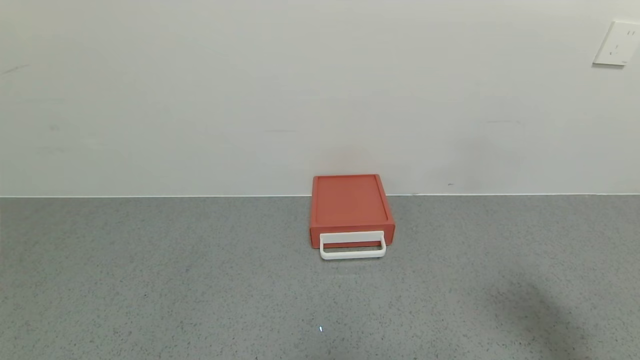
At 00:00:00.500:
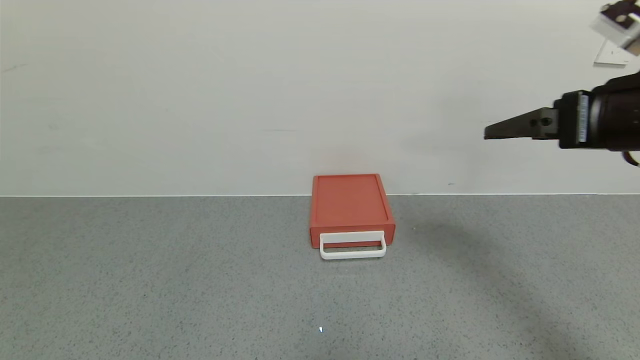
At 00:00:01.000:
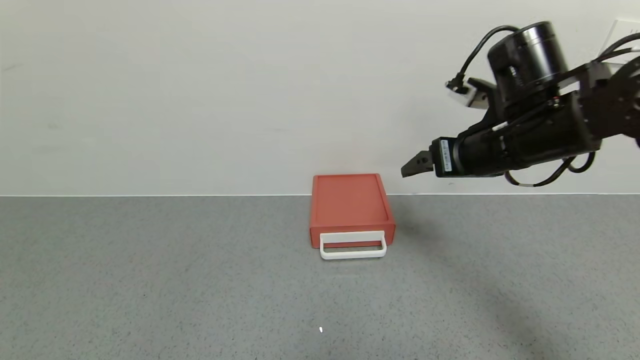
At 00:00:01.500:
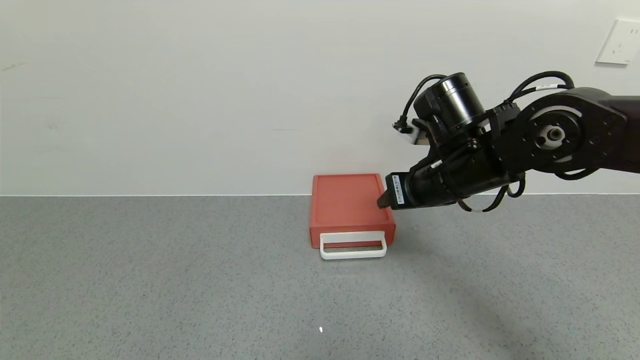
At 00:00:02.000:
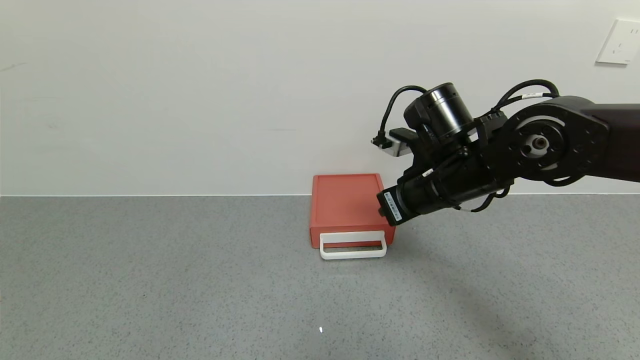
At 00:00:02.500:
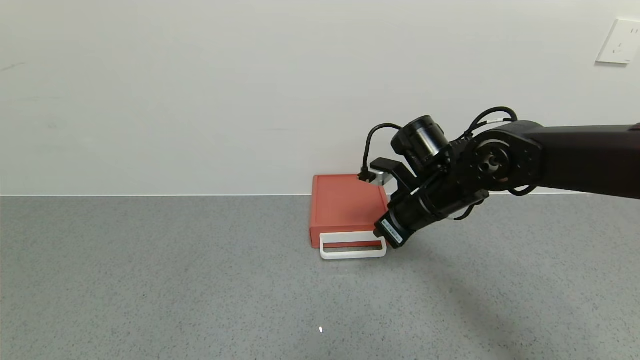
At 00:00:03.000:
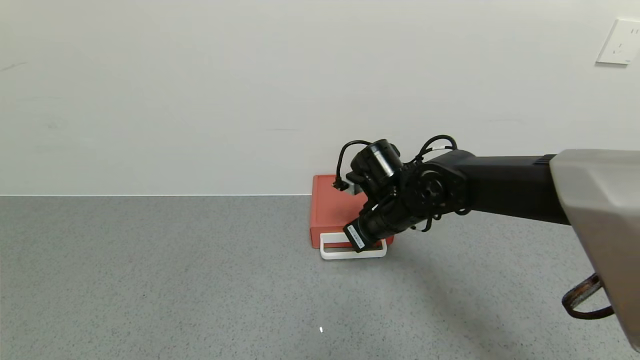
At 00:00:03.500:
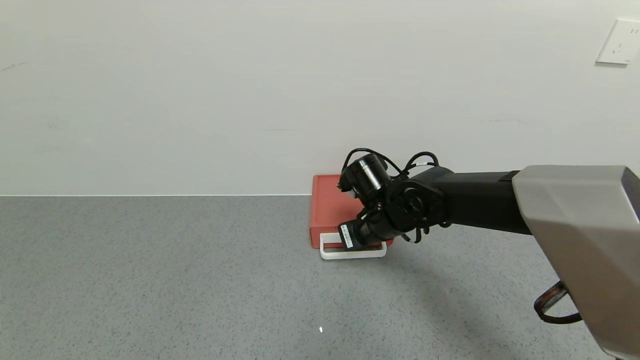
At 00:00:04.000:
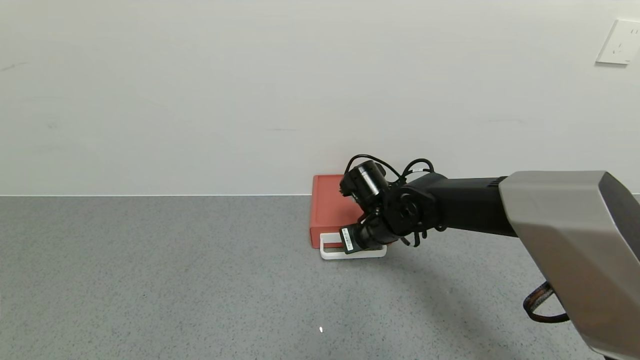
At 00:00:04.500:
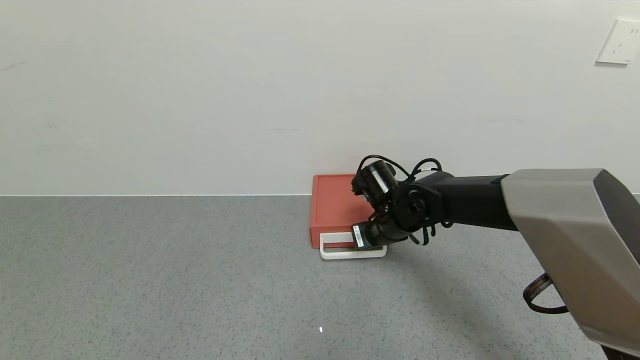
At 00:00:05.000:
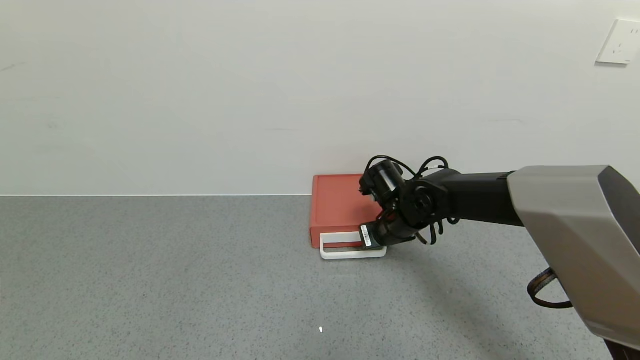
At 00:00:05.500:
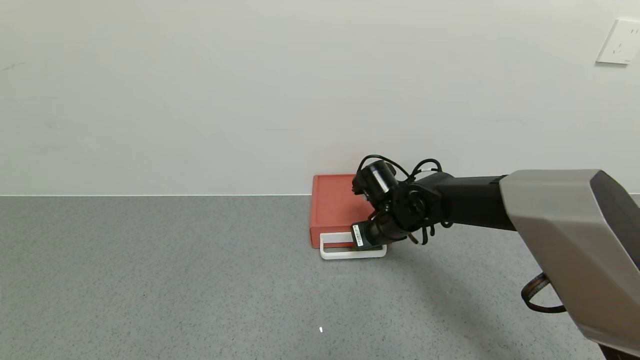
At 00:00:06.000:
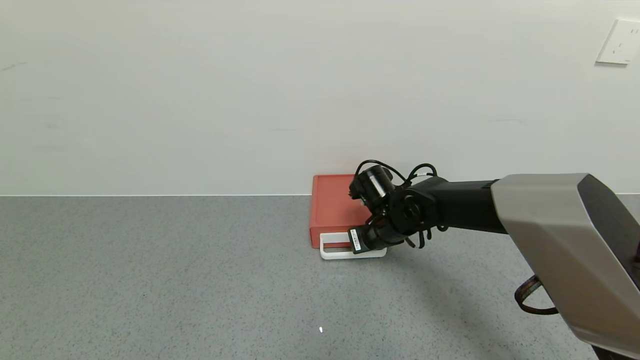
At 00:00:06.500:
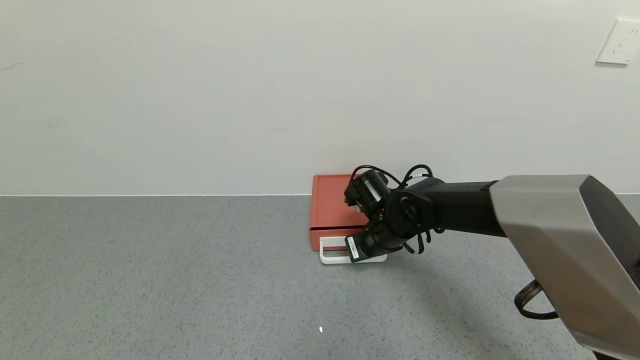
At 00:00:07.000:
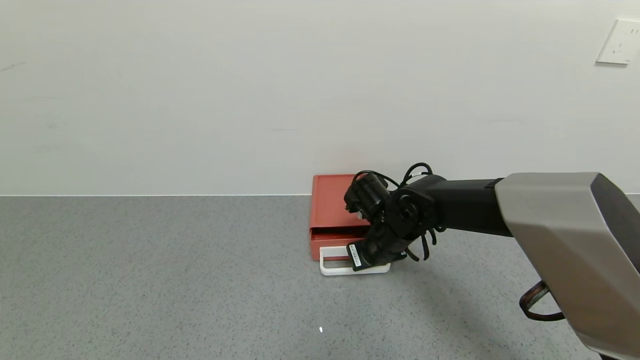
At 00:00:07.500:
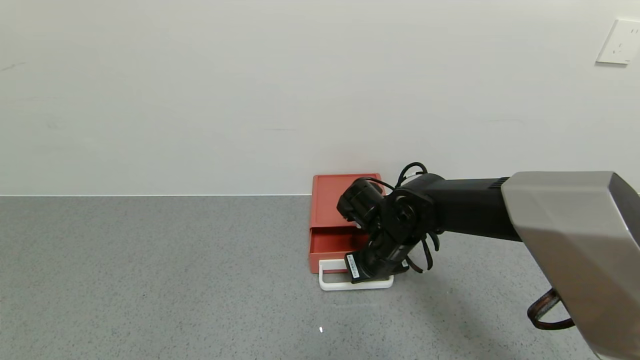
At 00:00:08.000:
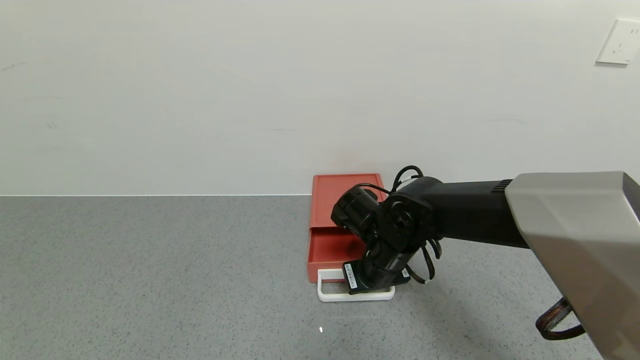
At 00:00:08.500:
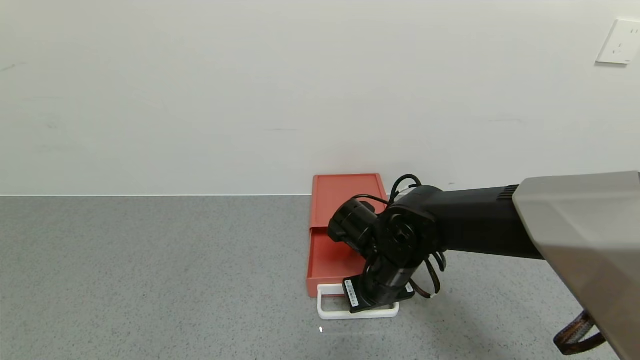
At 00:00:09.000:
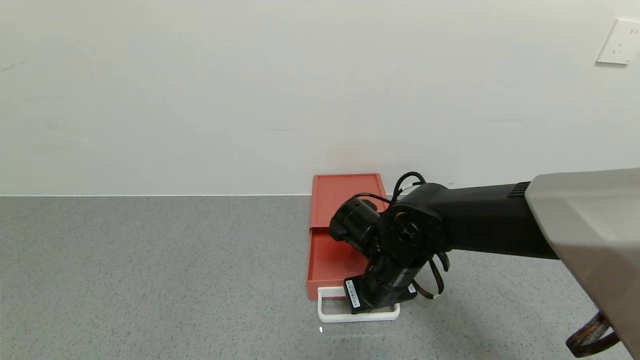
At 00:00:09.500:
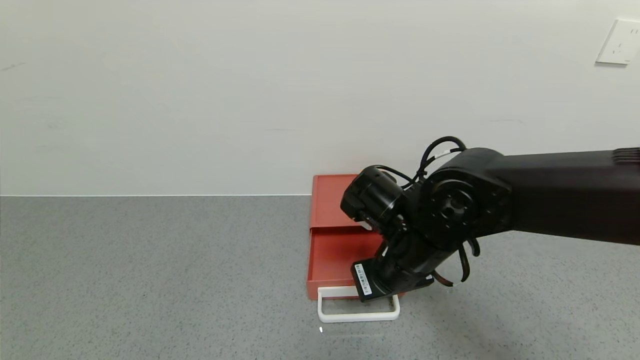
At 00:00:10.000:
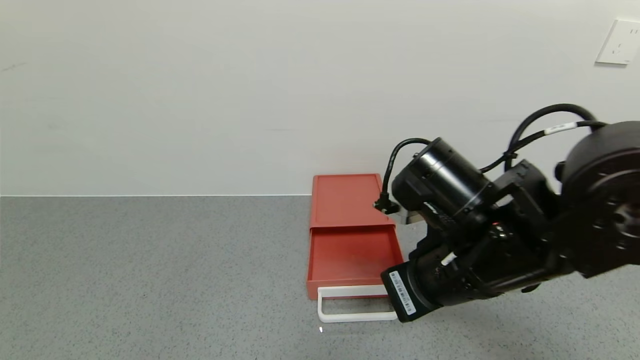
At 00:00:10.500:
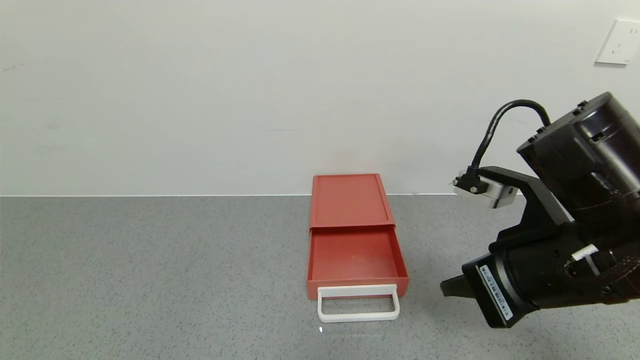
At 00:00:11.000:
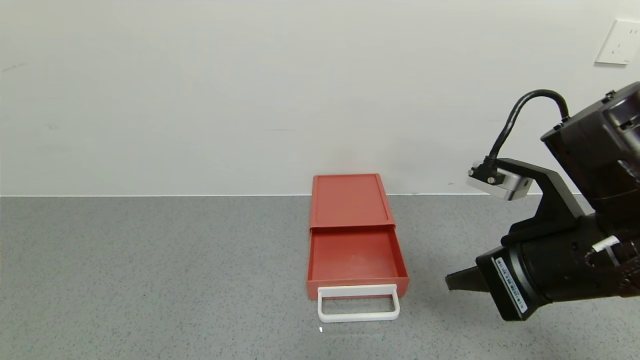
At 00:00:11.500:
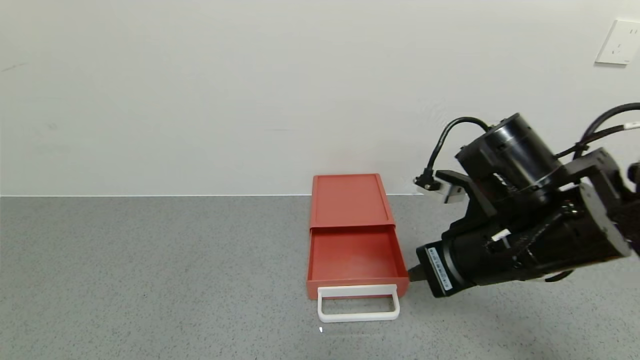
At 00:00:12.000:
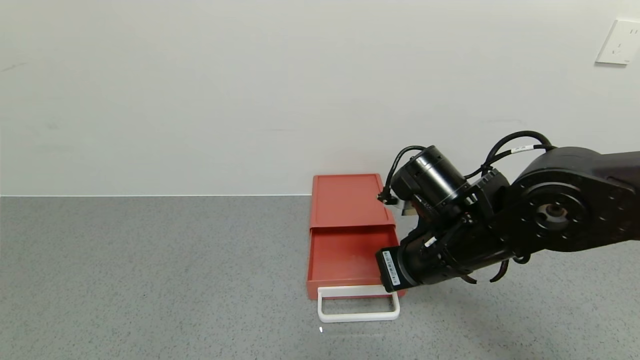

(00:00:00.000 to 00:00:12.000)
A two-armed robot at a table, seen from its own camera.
Task of the whole recording: use the gripper to open the drawer and close the red drawer.
Step, 00:00:00.000 - 00:00:09.500: Open the red drawer with the right gripper.
00:00:00.000 - 00:00:02.000: The right gripper shifts approximately 30 cm forward and to the left, and closes up.
00:00:02.000 - 00:00:04.000: The right gripper moves downward, to the left and forward, about 15 cm.
00:00:04.000 - 00:00:06.000: There are only small adjustments of the grippers.
00:00:06.000 - 00:00:08.000: The right gripper goes about 5 cm backward.
00:00:08.000 - 00:00:10.000: The right gripper goes approximately 15 cm backward, upward and to the right.
00:00:10.000 - 00:00:12.000: The right gripper moves about 10 cm to the right and comes back.

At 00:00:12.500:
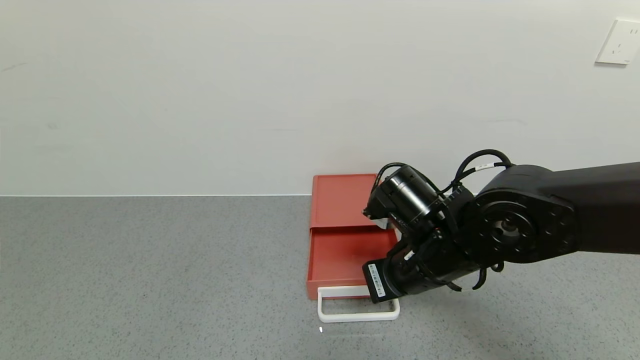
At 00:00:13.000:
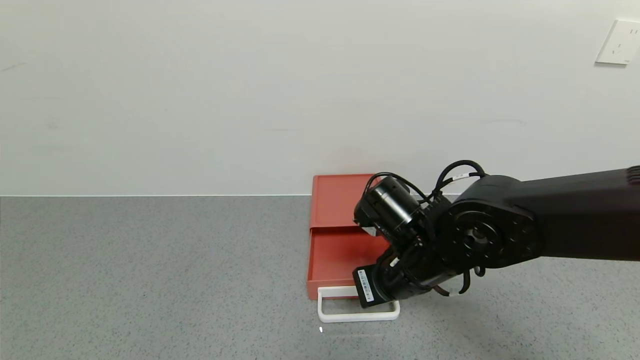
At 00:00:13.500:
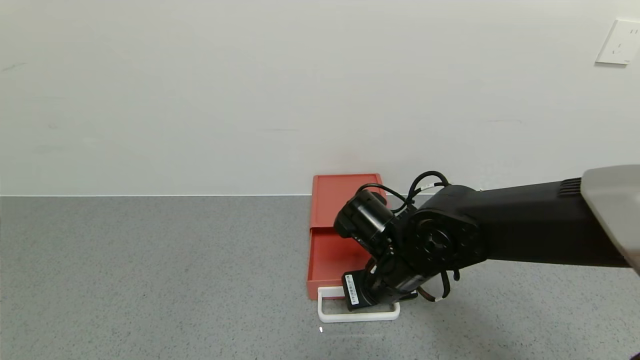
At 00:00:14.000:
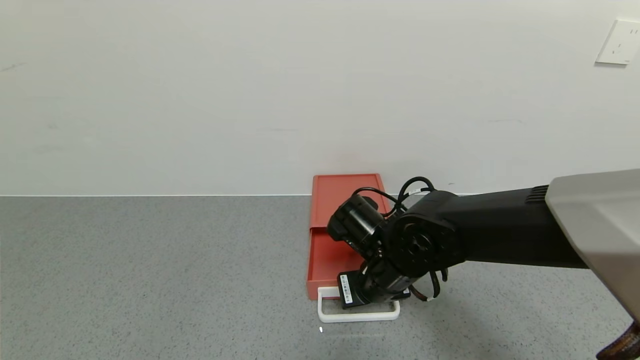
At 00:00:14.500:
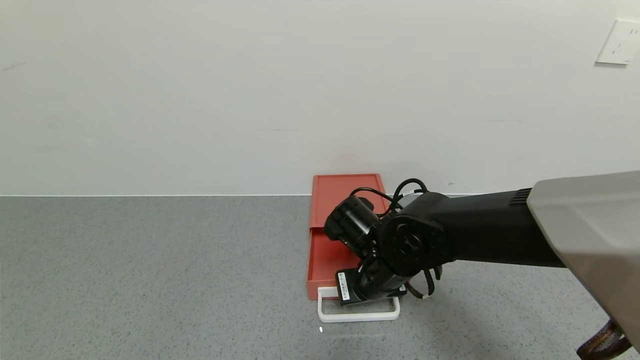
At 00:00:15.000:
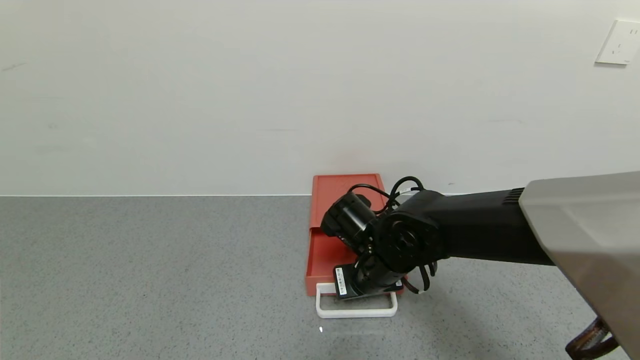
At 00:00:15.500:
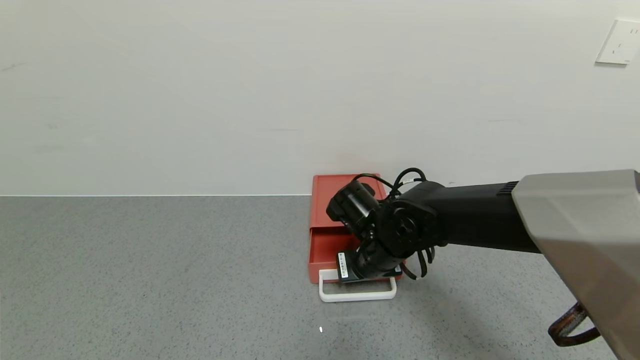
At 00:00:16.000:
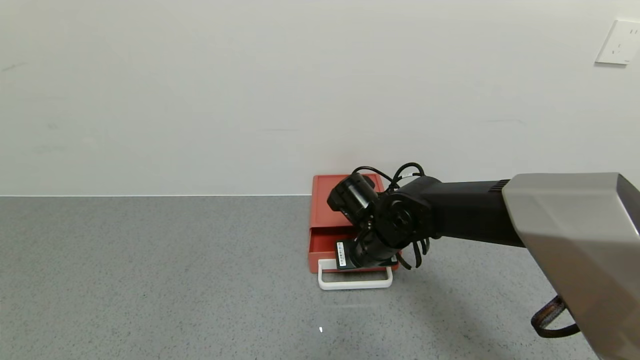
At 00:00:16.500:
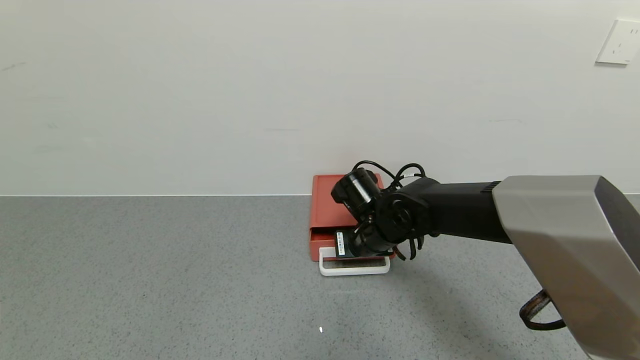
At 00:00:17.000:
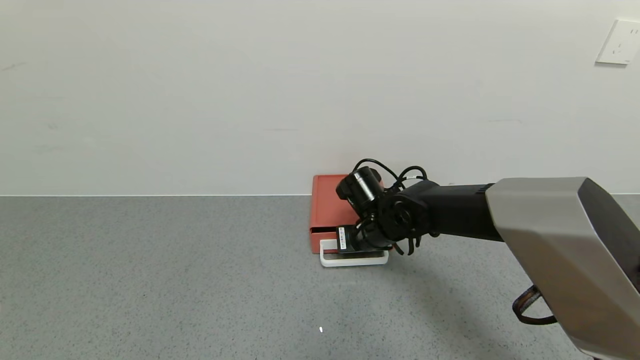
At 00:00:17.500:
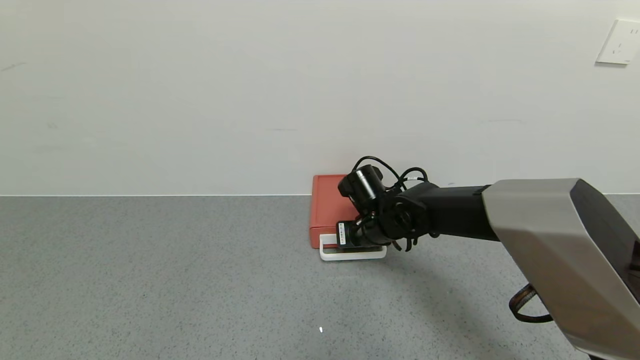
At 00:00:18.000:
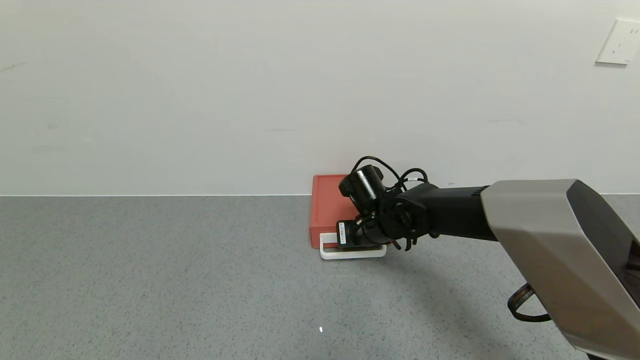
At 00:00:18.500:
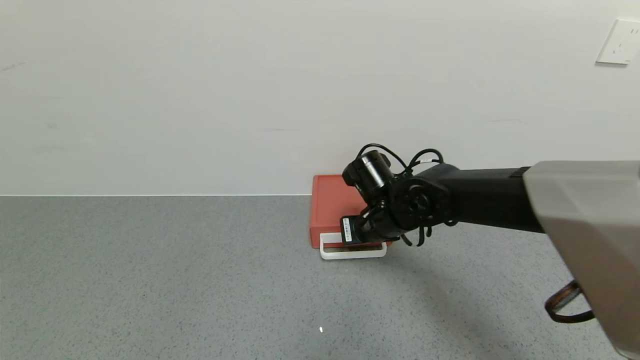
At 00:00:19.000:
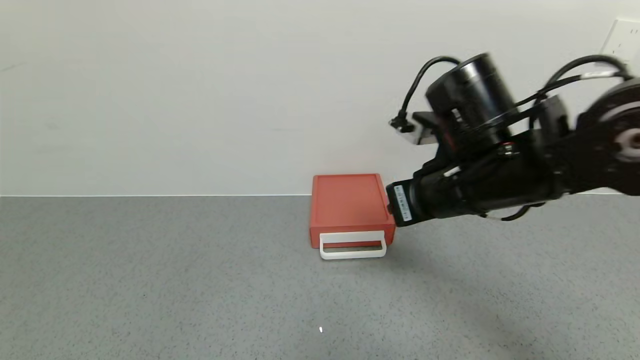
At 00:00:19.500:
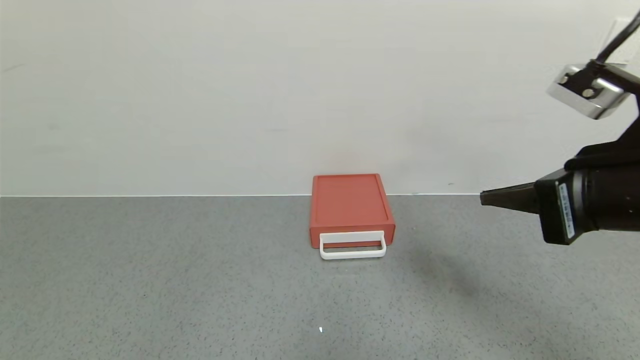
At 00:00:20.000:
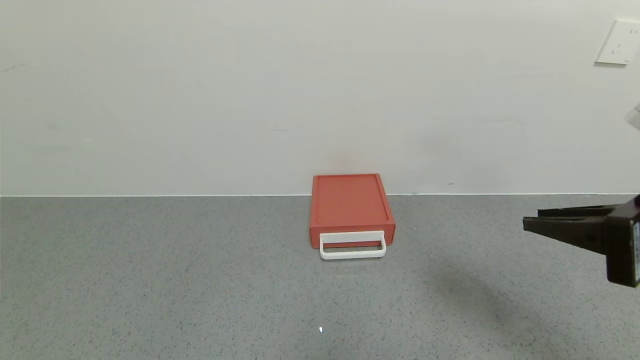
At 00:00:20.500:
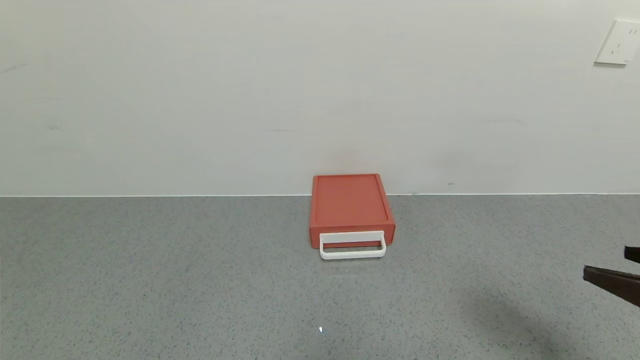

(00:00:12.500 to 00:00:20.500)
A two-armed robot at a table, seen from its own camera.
Task of the whole recording: use the gripper to open the drawer and close the red drawer.
Step, 00:00:12.500 - 00:00:18.500: Close the red drawer with the right gripper.
00:00:12.500 - 00:00:14.500: The right gripper goes some 5 cm downward.
00:00:14.500 - 00:00:16.500: The right gripper moves forward, roughly 5 cm.
00:00:16.500 - 00:00:18.500: The grippers move only a little.
00:00:18.500 - 00:00:20.500: The right gripper is displaced backward, to the right and upward by about 35 cm, and opens up.
